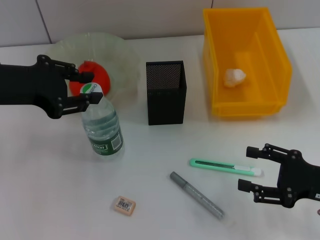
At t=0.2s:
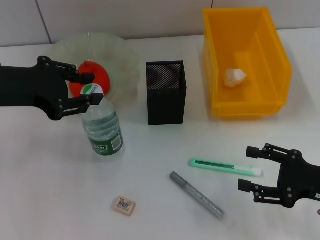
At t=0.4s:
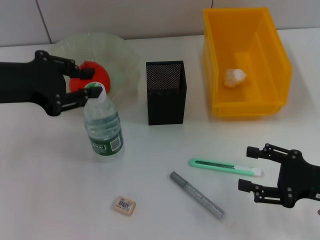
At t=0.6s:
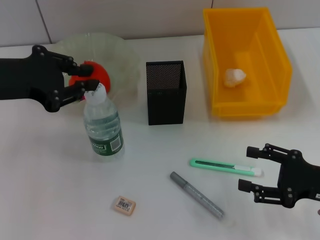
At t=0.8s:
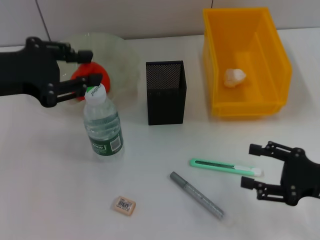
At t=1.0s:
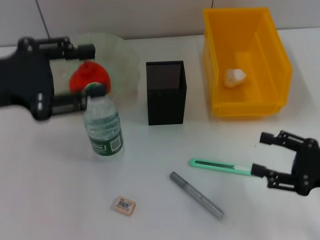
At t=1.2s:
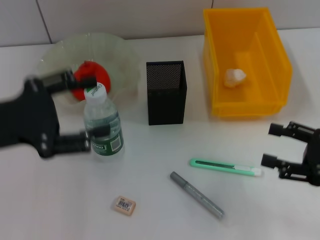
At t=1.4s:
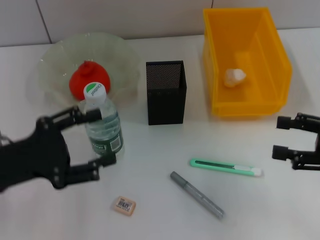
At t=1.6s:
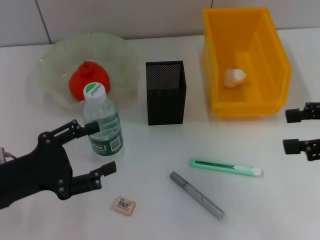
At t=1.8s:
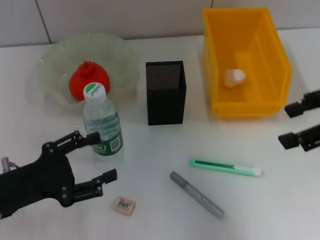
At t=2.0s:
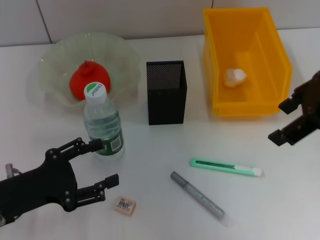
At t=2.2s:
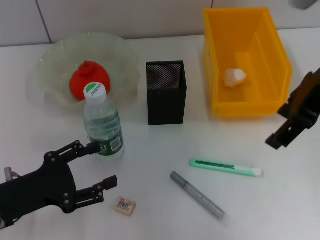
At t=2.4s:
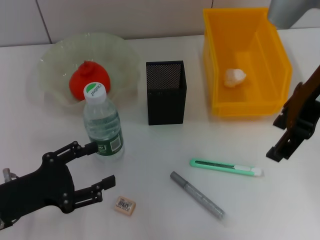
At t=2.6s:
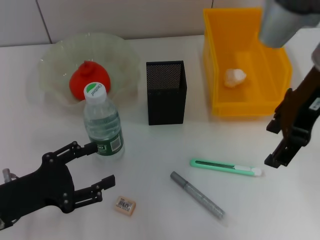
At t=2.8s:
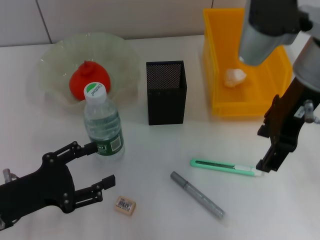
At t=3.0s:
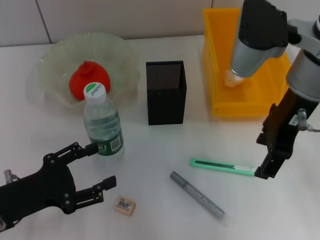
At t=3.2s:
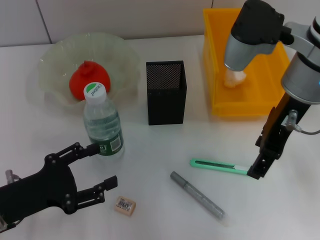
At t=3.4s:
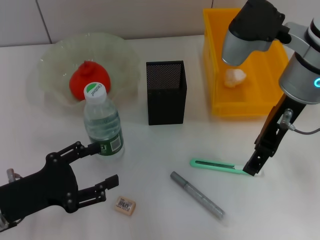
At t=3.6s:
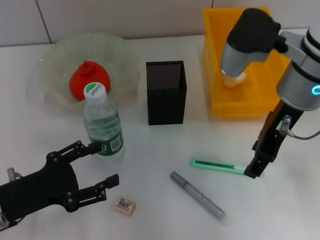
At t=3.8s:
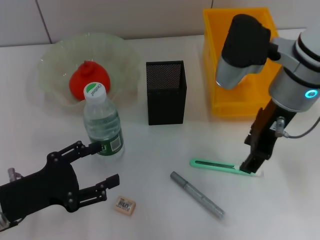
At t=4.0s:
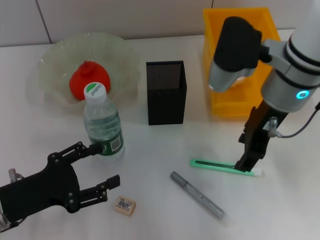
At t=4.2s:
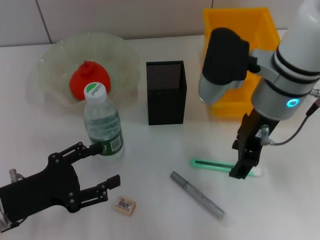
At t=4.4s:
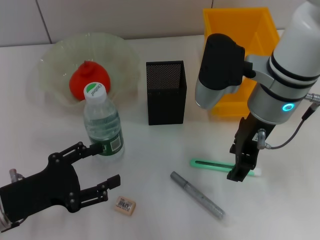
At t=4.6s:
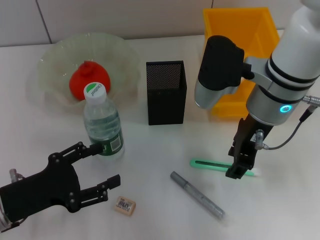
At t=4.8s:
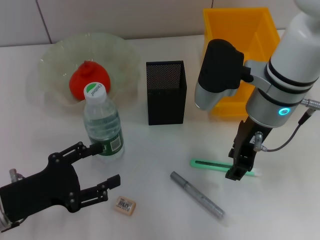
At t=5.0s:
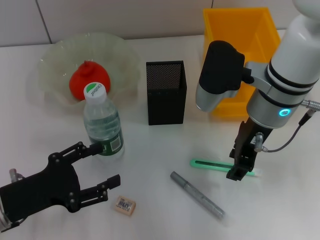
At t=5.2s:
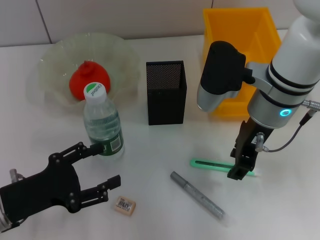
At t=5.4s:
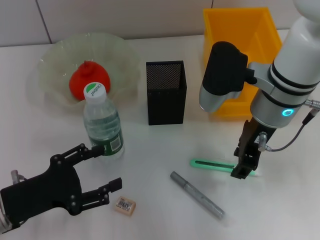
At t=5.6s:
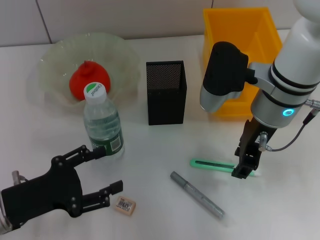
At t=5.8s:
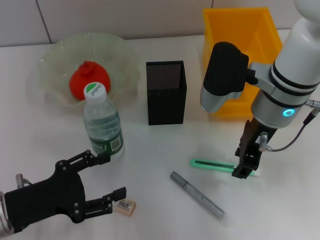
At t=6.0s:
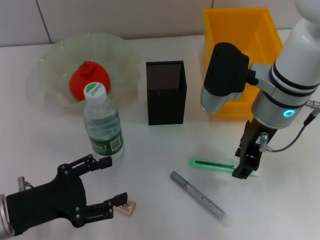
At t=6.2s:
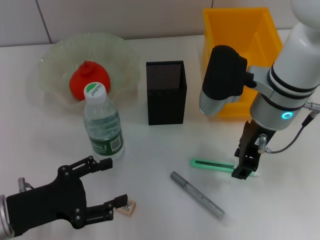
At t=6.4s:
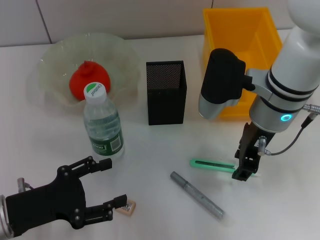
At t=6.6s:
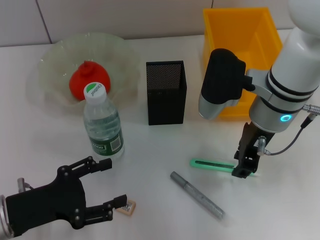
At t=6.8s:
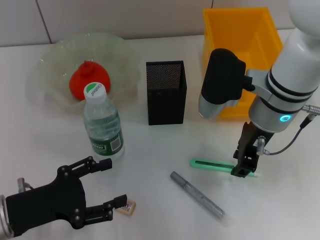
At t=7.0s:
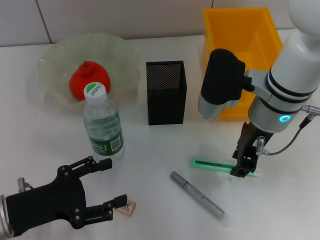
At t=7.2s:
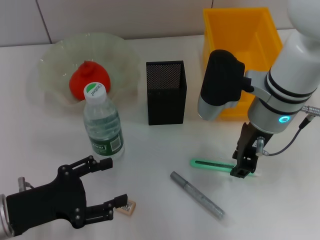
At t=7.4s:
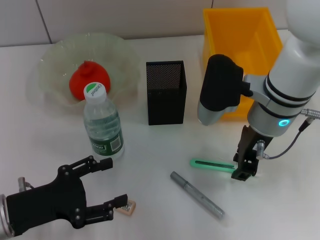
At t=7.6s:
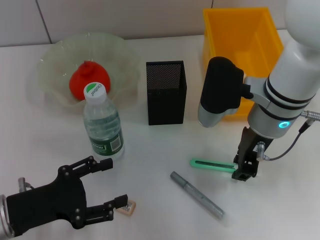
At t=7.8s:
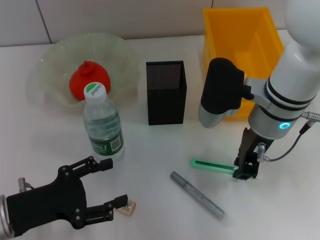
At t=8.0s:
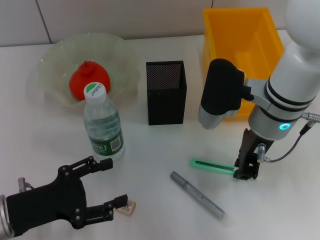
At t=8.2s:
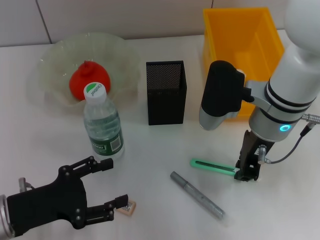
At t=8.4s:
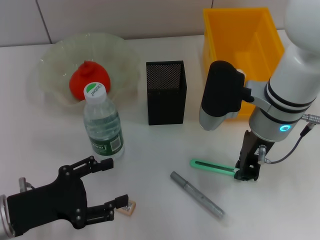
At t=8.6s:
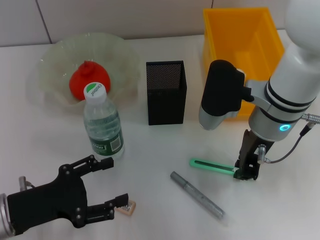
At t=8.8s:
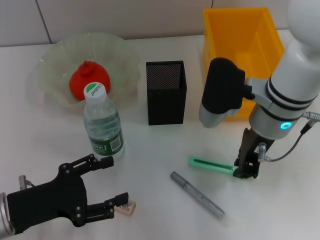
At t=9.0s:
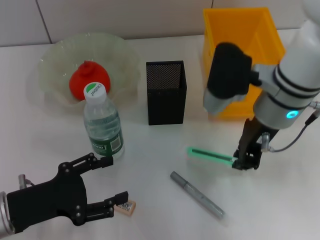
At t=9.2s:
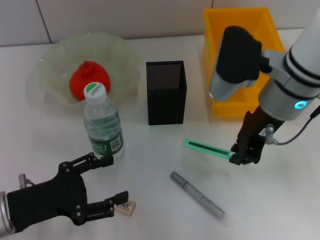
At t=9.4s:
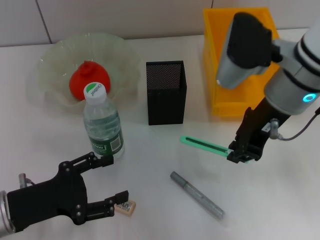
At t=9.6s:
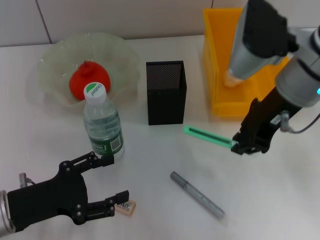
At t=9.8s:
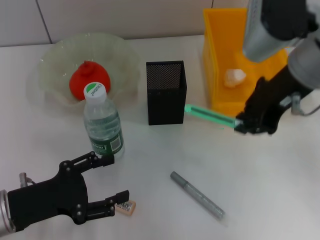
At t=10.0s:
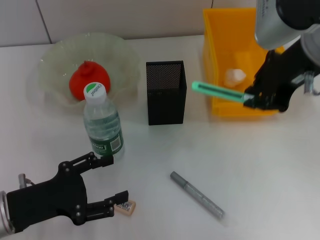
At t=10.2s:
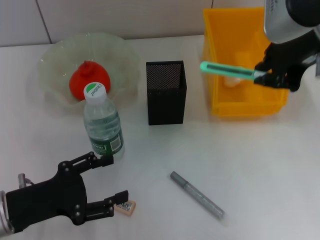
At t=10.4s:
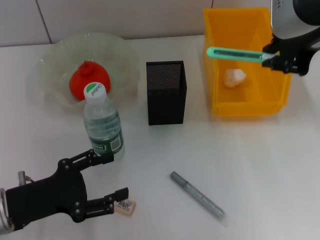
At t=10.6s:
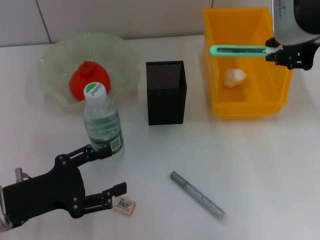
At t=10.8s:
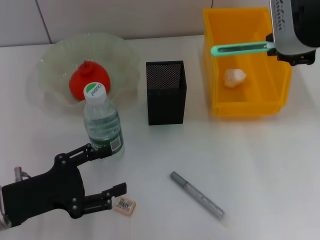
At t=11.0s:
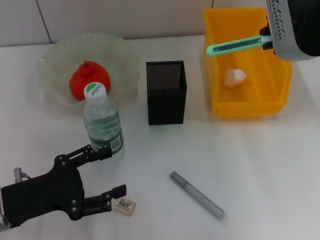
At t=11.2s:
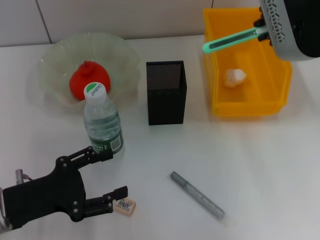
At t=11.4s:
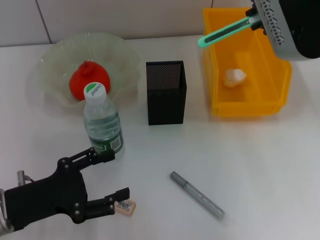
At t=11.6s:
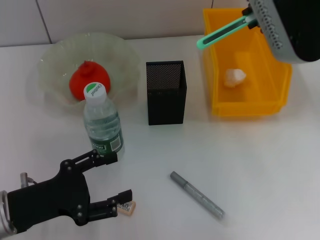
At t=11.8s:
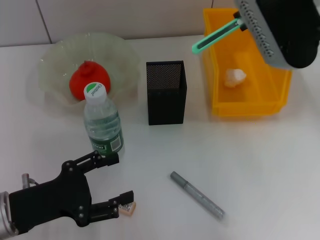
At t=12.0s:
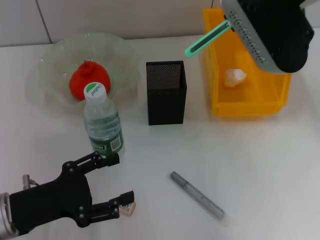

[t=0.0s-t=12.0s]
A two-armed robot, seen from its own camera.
Step, t=0.6s to t=8.4s: Grab the blue utility knife with the right hand.
t=0.0s to t=1.6s: The right gripper goes roughly 15 cm upward. Meanwhile the left gripper moves downward and backward, roughly 15 cm, and opens up.
t=1.6s to t=3.0s: The right gripper moves to the left and forward, about 20 cm.
t=3.0s to t=4.4s: The right gripper heads downward, covering some 5 cm.
t=4.4s to t=9.0s: There are only small adjustments of the grippers.
t=9.0s to t=10.4s: The right gripper goes about 15 cm upward.
t=10.4s to t=12.0s: The right gripper ends up about 5 cm from where it was.

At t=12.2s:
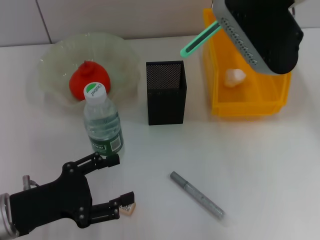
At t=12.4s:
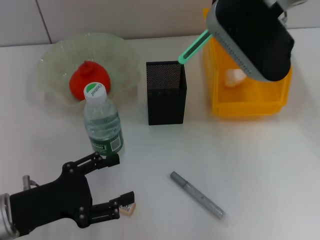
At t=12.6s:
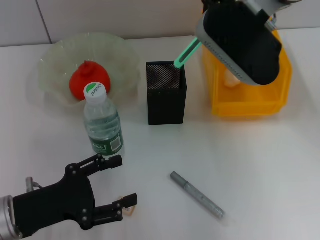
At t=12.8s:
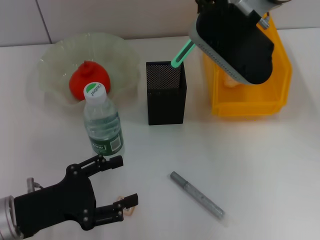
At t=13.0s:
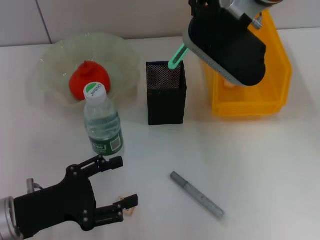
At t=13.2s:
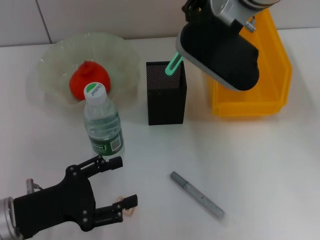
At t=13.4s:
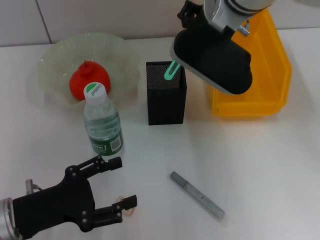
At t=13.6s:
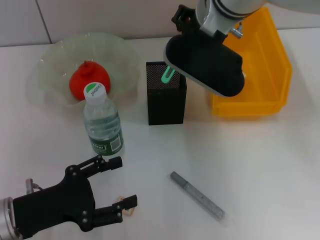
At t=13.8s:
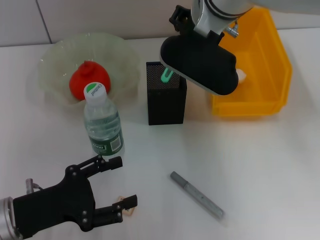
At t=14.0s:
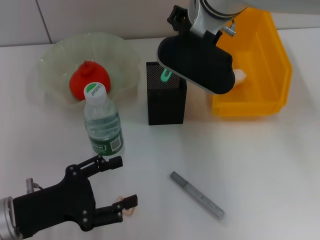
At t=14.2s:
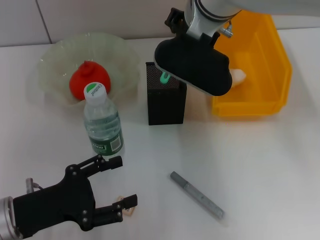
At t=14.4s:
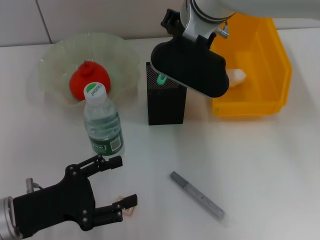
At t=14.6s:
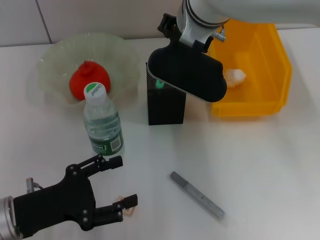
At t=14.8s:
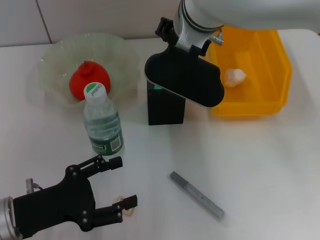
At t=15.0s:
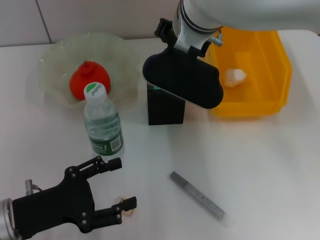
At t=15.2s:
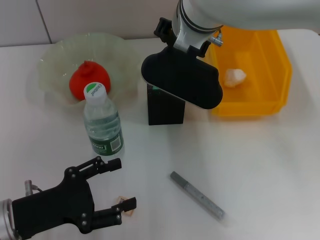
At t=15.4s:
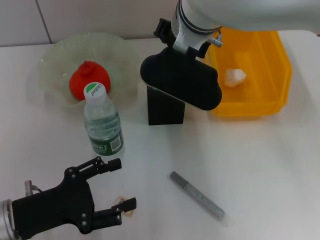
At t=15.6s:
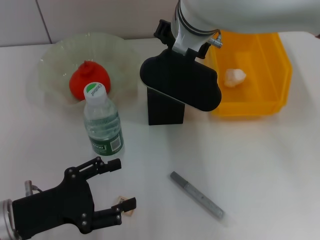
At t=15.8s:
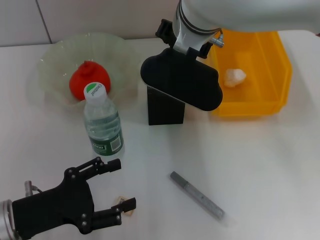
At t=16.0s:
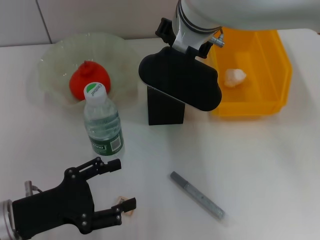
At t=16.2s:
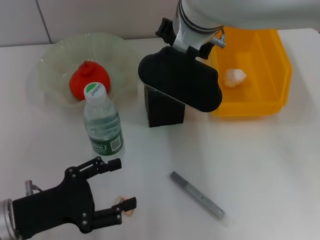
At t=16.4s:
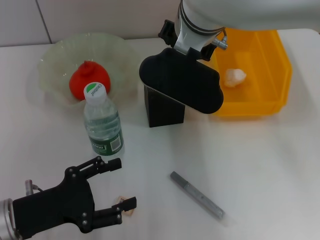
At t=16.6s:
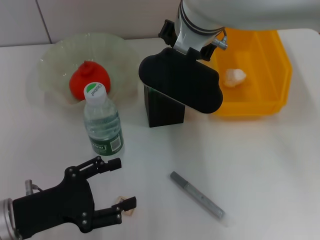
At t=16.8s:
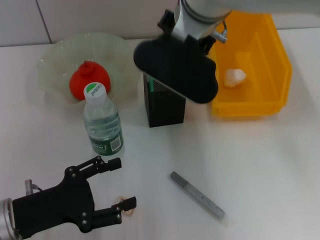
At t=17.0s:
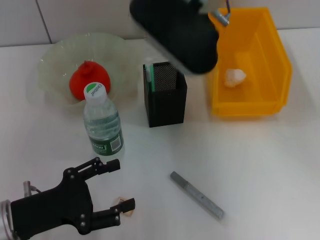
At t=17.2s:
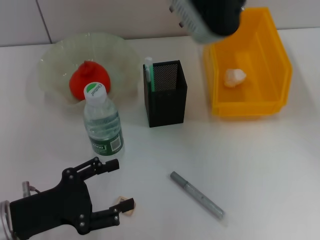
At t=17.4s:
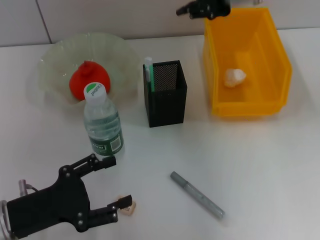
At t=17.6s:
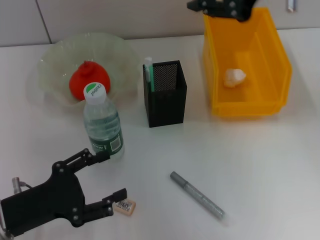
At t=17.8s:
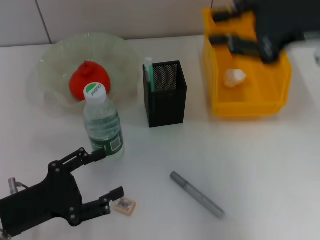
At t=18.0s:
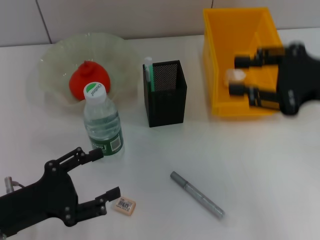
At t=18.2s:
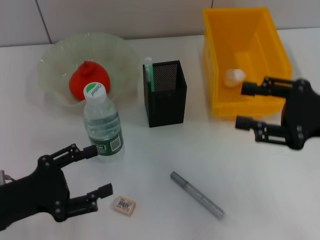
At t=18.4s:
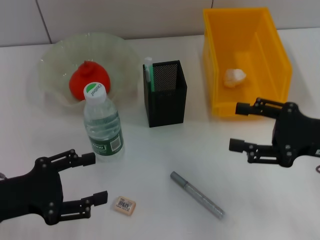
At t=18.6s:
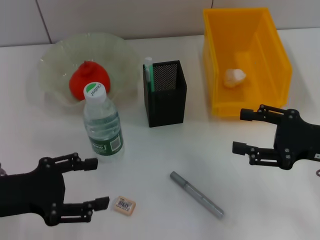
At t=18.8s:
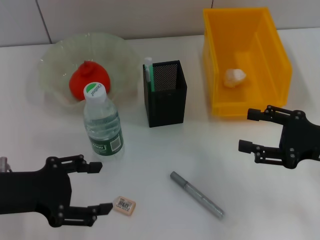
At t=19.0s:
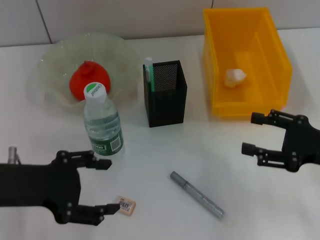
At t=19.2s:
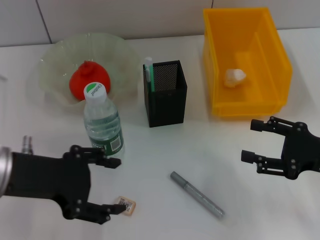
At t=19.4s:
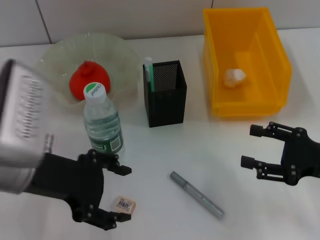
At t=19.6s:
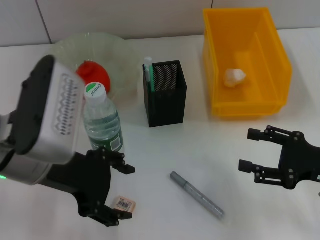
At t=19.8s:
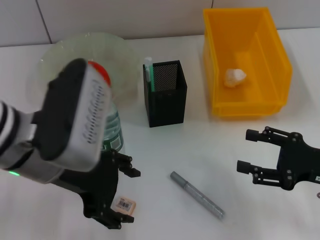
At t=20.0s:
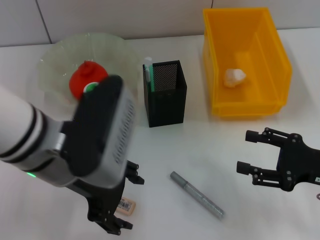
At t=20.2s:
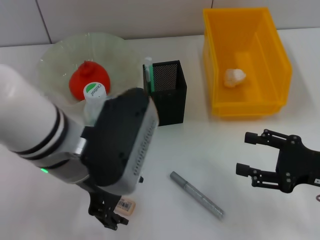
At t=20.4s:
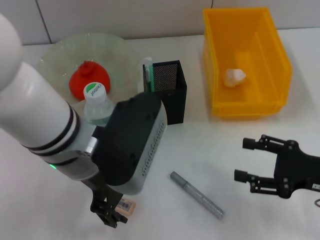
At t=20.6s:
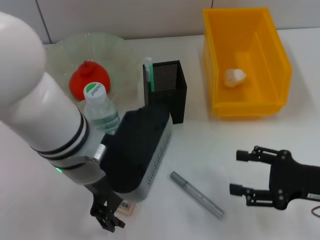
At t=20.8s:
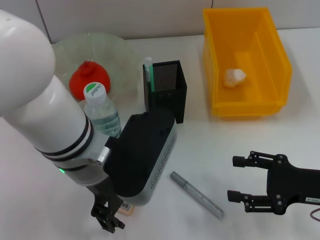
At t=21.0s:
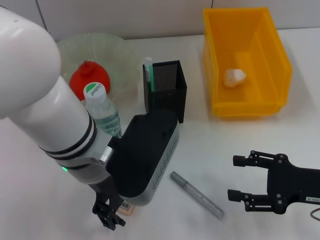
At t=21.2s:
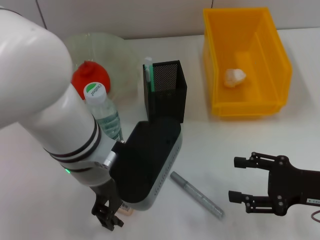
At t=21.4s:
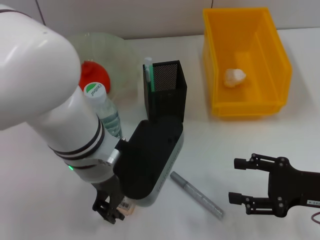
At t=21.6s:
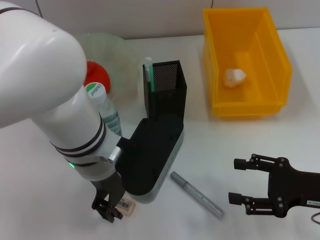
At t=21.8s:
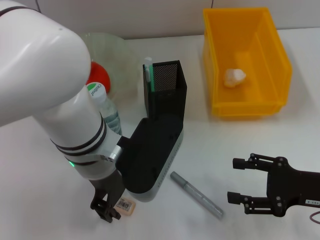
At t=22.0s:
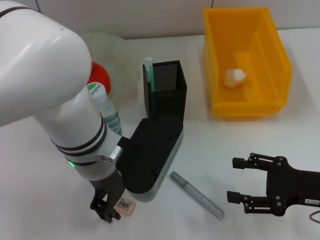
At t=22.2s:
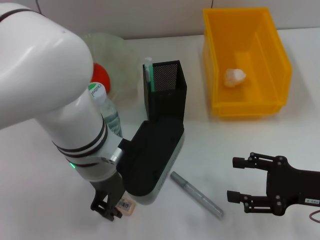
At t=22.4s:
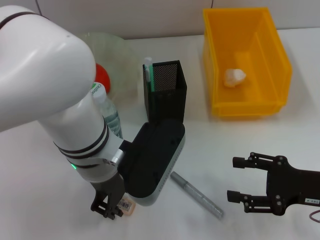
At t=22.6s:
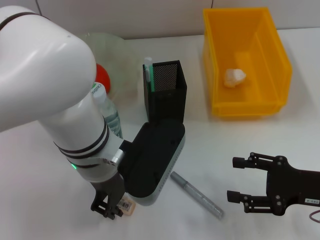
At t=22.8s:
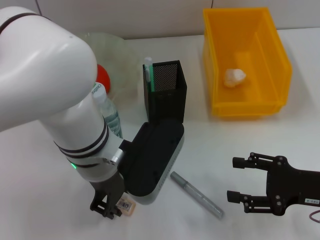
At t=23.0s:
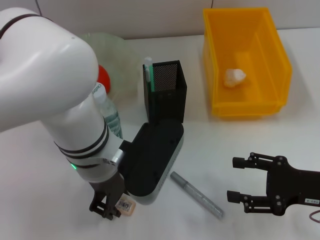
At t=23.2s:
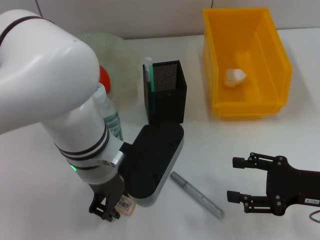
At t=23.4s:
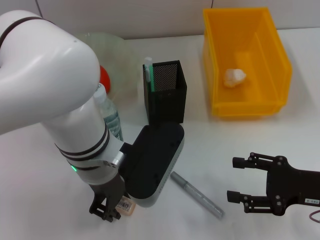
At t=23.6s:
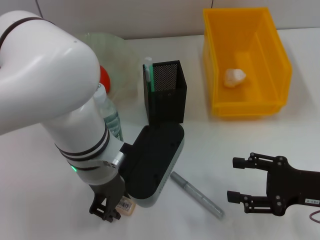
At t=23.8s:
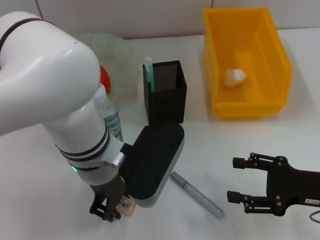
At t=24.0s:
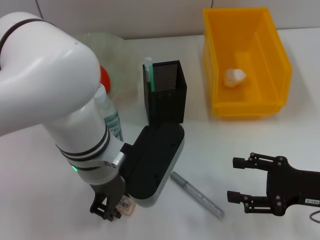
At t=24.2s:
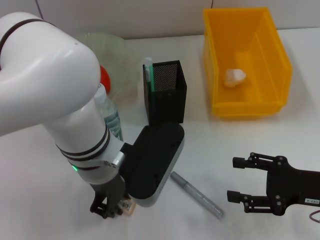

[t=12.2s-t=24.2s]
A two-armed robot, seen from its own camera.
Step, t=12.2s to t=16.4s: Place the blue utility knife into the pen holder with the right hand.
t=12.2s to t=13.8s: The right gripper is displaced to the left and downward by some 10 cm.
t=13.8s to t=15.2s: The grippers move only a little.
t=15.2s to t=16.6s: The two grippers keep their place.
t=16.6s to t=18.2s: The right gripper heads to the right and backward, covering approximately 30 cm, and opens.
t=18.2s to t=19.8s: The right gripper is displaced downward by approximately 10 cm. Meanwhile the left gripper shifts some 20 cm upward and to the right.
t=19.8s to t=21.2s: The left gripper heads to the right, covering approximately 5 cm.
t=21.2s to t=22.6s: The left gripper closes up.
t=22.6s to t=24.2s: The two grippers keep their place.
